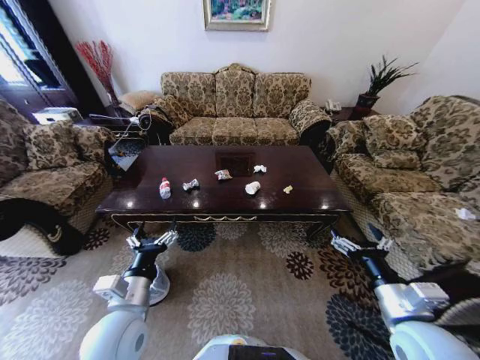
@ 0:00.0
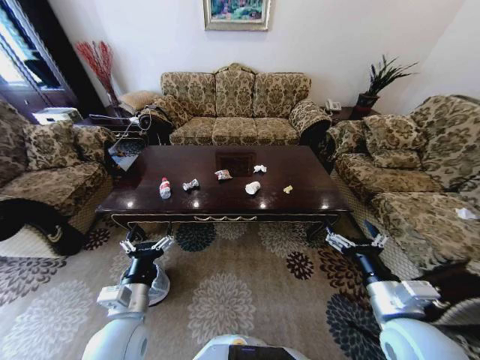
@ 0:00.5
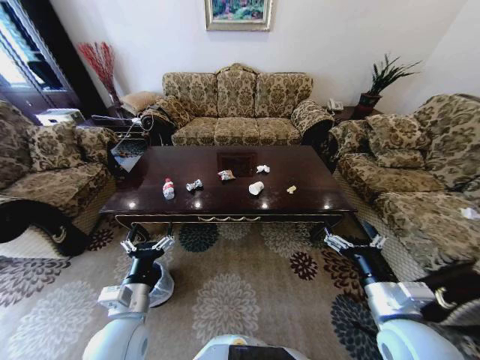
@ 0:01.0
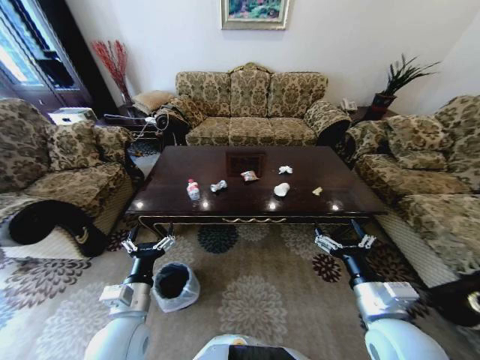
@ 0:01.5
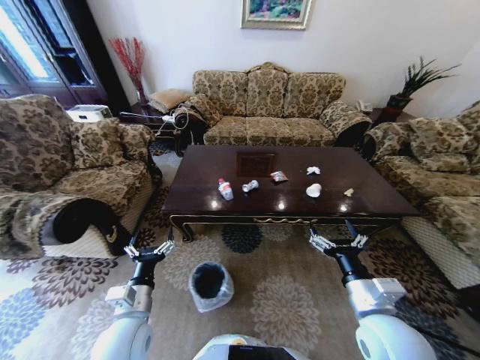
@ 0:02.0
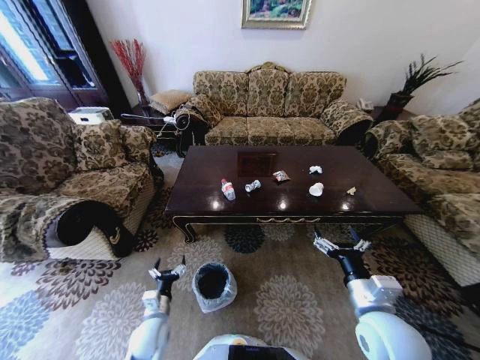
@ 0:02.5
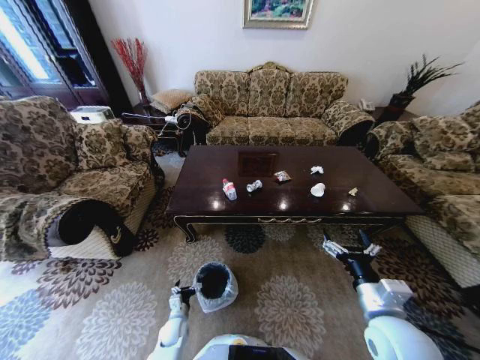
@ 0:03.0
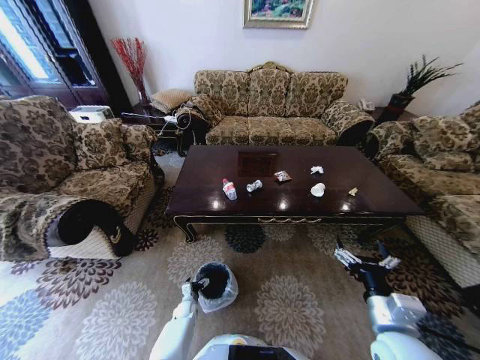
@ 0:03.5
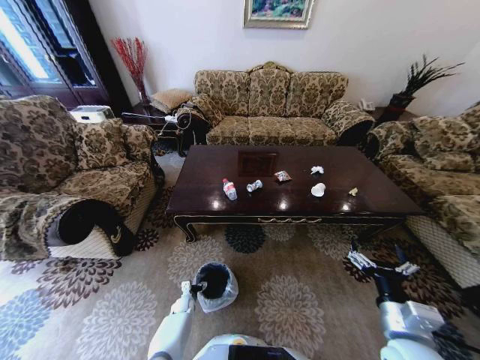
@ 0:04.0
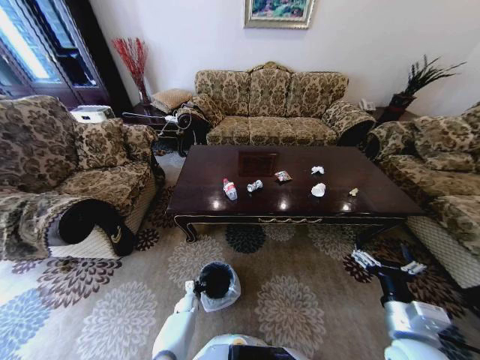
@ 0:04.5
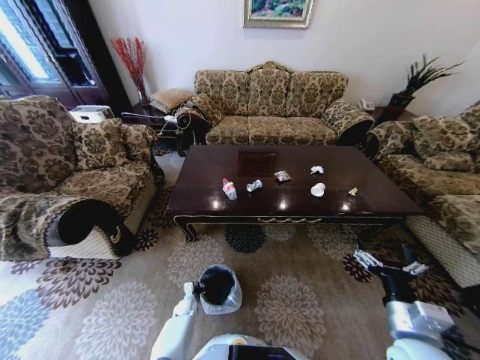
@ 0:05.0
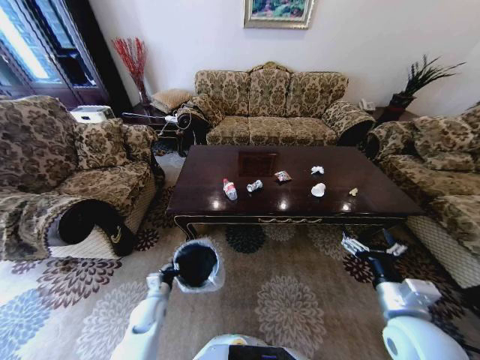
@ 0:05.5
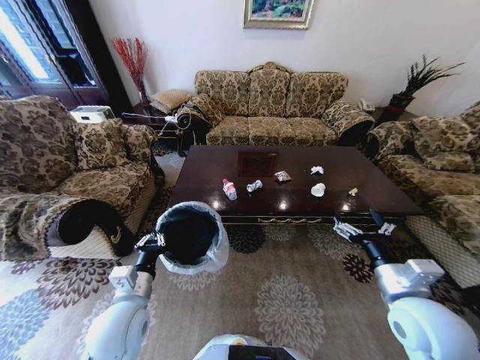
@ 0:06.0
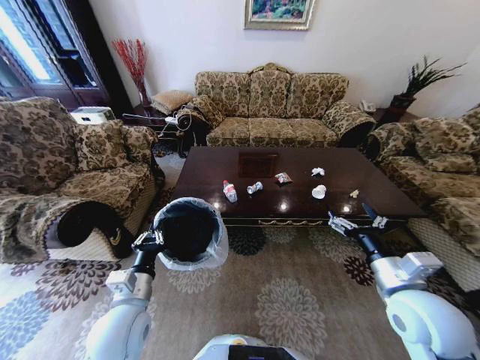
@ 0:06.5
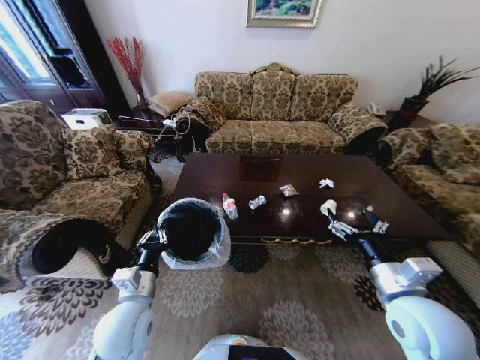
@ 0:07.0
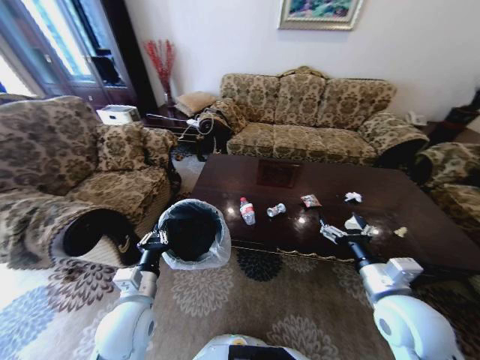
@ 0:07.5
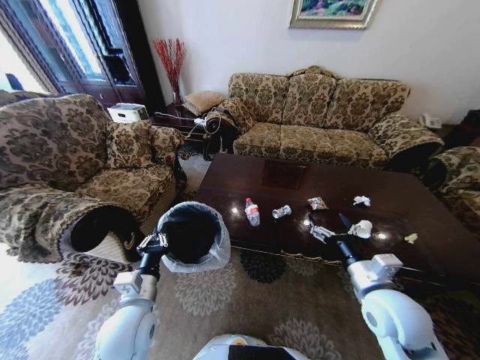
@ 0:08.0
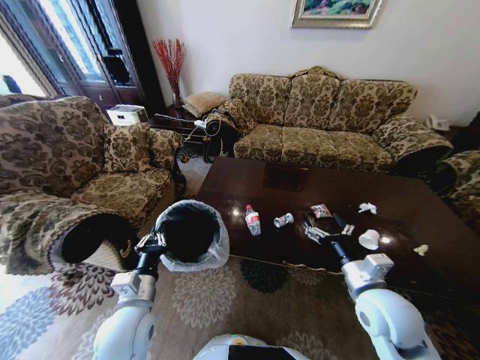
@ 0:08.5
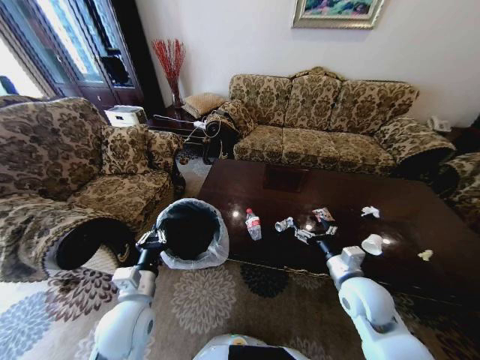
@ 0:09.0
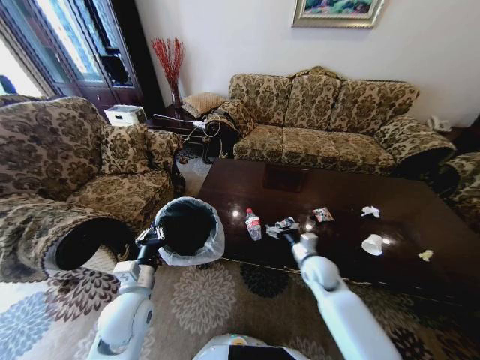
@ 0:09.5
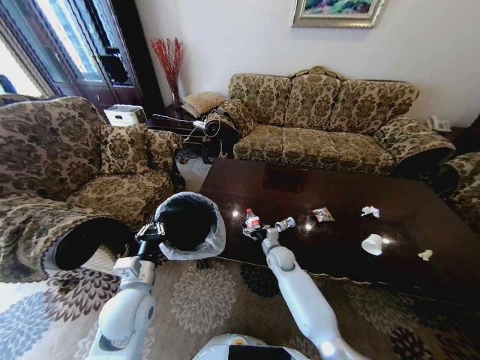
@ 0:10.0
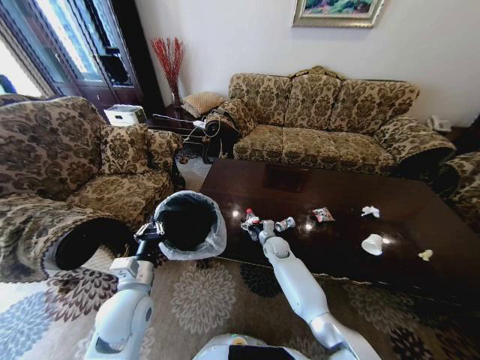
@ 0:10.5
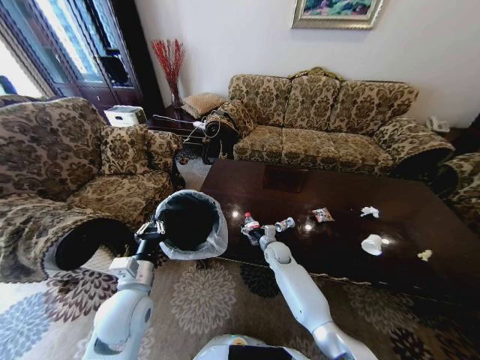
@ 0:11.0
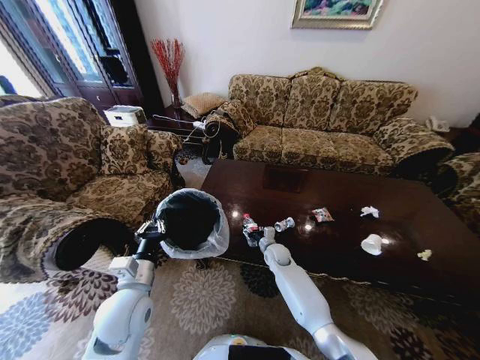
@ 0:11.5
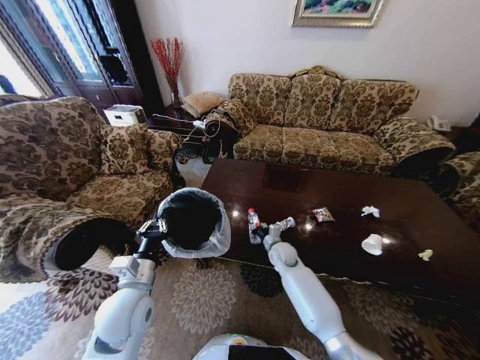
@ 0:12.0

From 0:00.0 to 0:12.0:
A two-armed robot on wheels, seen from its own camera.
Task of the whole recording: Move to the front of the table and place the trash on the table into the trash bin.
From 0:02.0 to 0:04.0: The right gripper moves some 5 cm, while the left gripper travels downward by some 35 cm.
From 0:04.0 to 0:06.0: The right gripper heads upward and forward, covering approximately 10 cm, while the left gripper shifts approximately 40 cm upward, and closes.
From 0:08.0 to 0:10.0: The right gripper heads forward, downward and to the left, covering about 30 cm.
From 0:10.0 to 0:12.0: The right gripper closes its fingers.

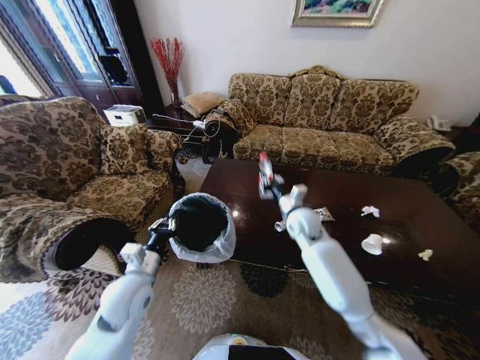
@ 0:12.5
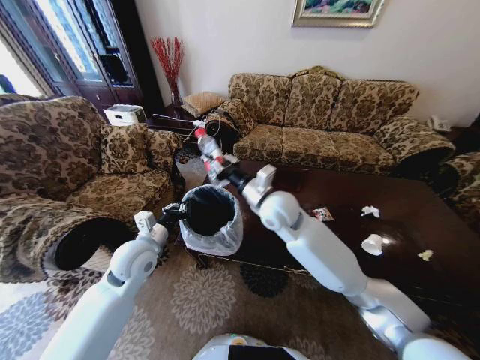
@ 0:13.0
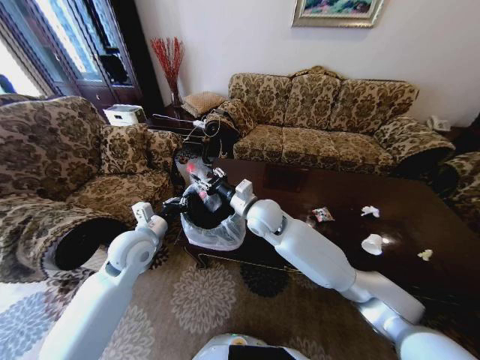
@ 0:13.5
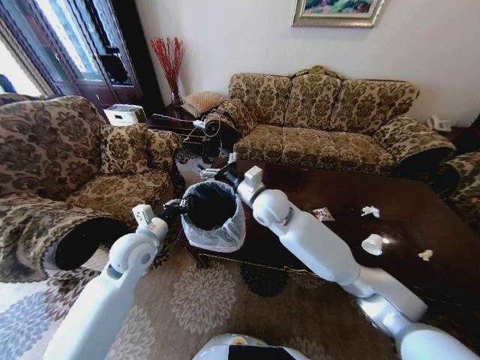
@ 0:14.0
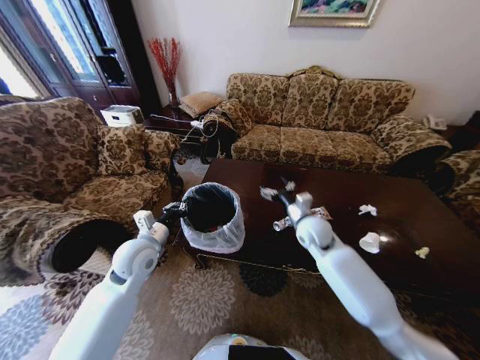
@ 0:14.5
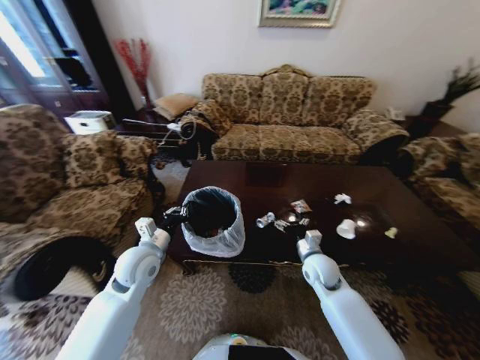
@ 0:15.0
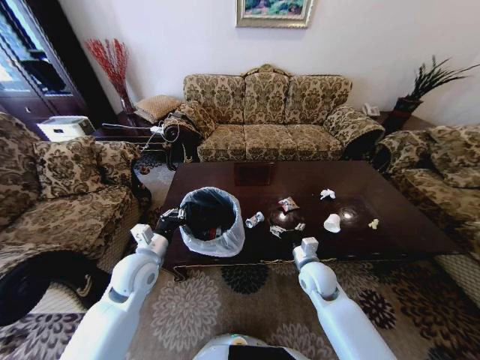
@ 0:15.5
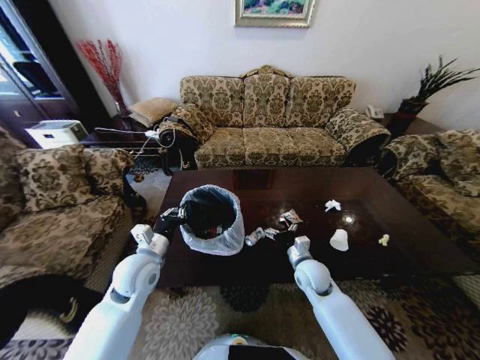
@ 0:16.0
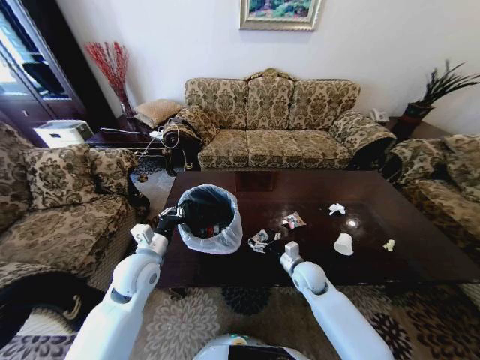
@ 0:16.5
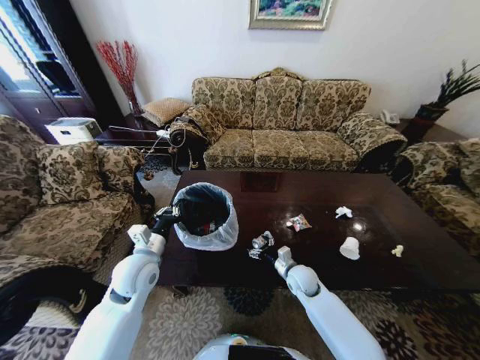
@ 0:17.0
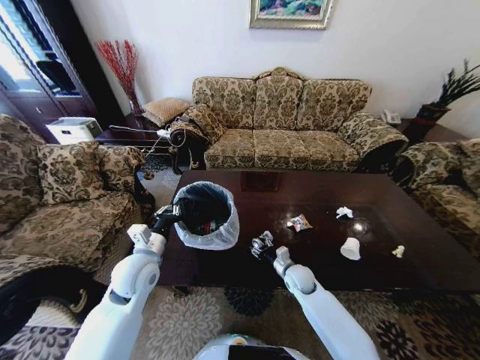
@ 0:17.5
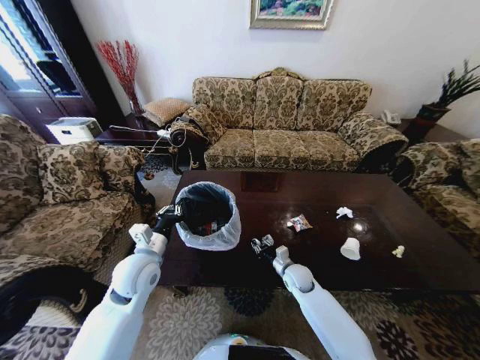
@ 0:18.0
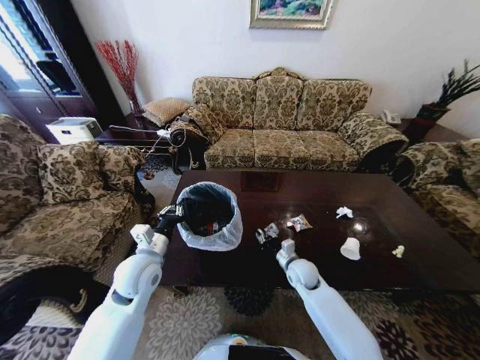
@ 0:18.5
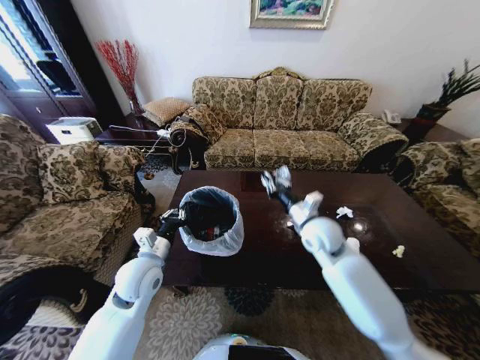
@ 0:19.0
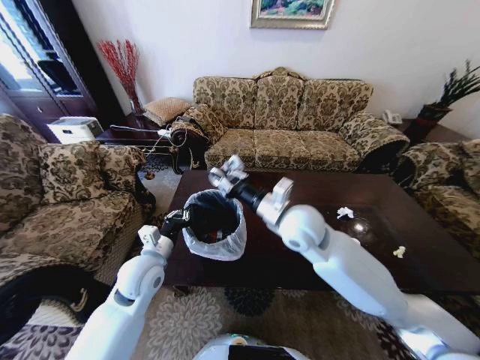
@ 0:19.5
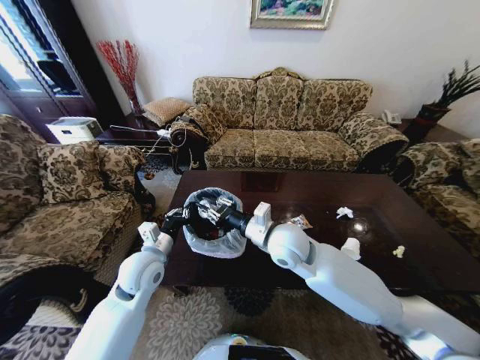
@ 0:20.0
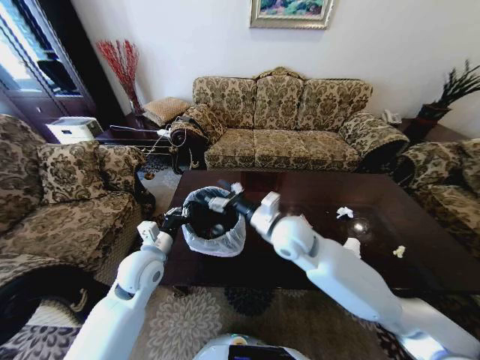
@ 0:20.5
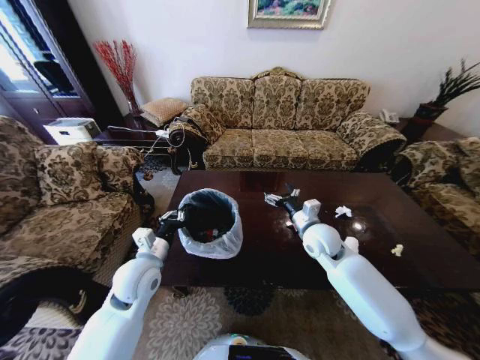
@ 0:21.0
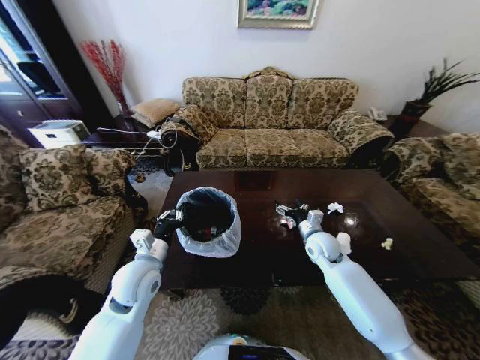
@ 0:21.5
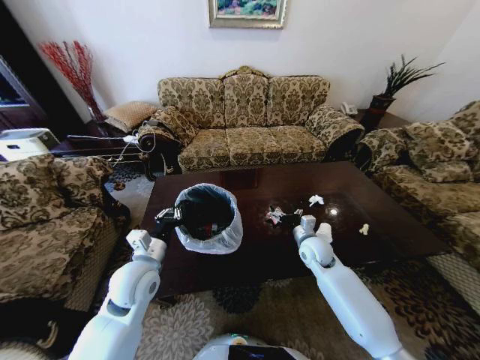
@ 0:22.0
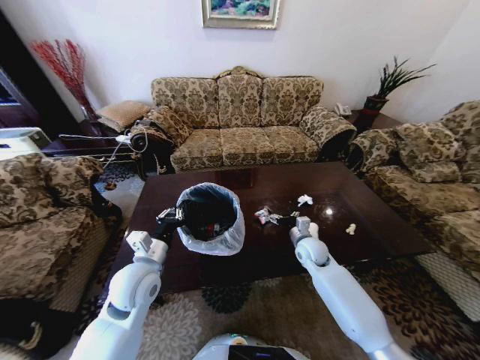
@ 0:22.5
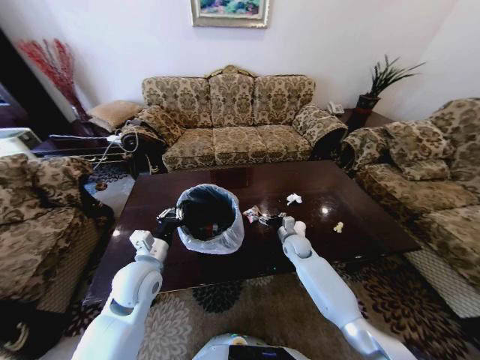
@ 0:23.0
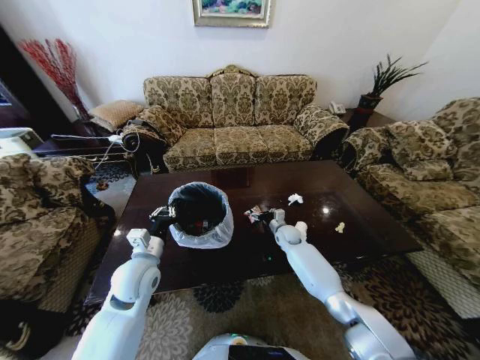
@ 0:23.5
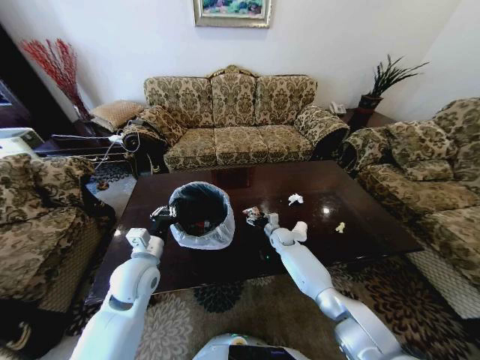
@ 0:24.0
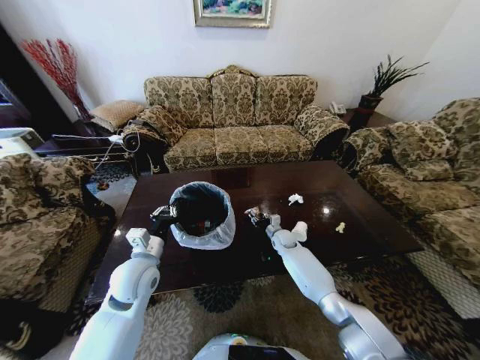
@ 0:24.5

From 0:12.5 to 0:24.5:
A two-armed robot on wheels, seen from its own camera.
Task of the whole recording: Move to the front of the table and place the trash on the table into the trash bin.
From 0:12.5 to 0:14.5: The right gripper moves roughly 15 cm to the left and comes back, and opens its fingers; the left gripper is displaced forward by approximately 10 cm.
From 0:14.5 to 0:16.5: The right gripper heads downward and backward, covering approximately 15 cm.
From 0:16.5 to 0:18.5: The right gripper closes its fingers.
From 0:18.5 to 0:20.5: The right gripper is displaced upward and to the left by roughly 25 cm, and opens.
From 0:20.5 to 0:22.5: The right gripper goes about 20 cm downward and to the right.
From 0:22.5 to 0:24.5: The right gripper goes roughly 15 cm forward, downward and to the left, and closes.

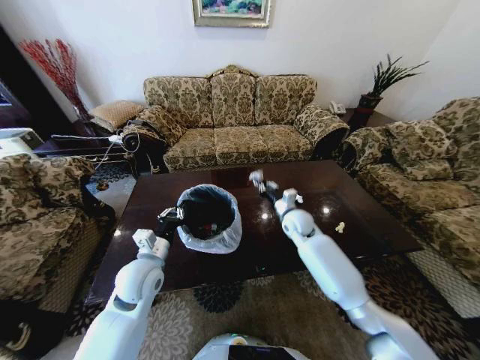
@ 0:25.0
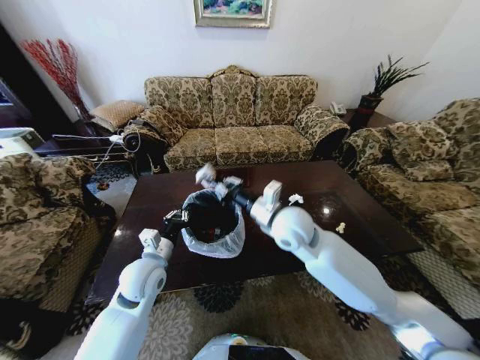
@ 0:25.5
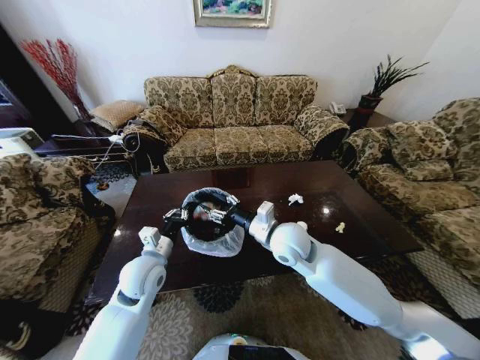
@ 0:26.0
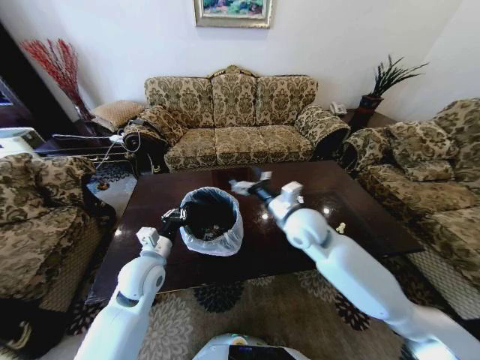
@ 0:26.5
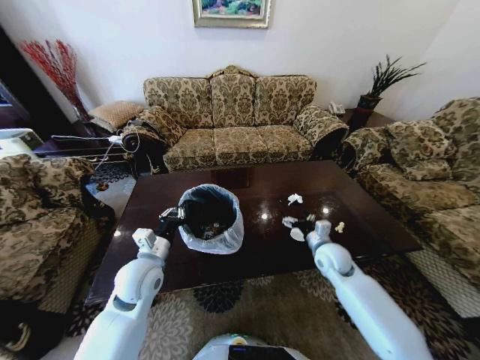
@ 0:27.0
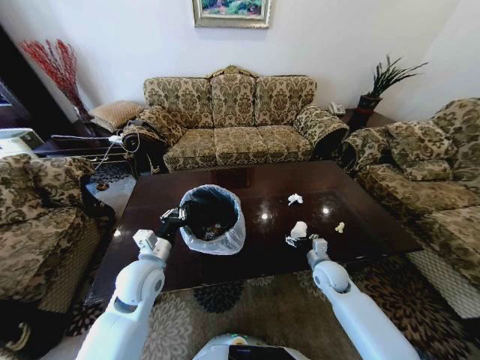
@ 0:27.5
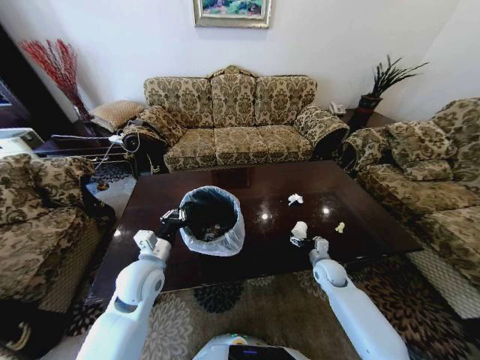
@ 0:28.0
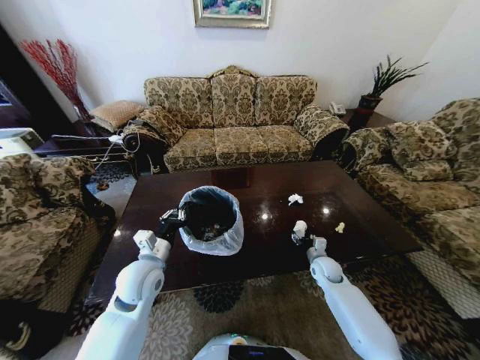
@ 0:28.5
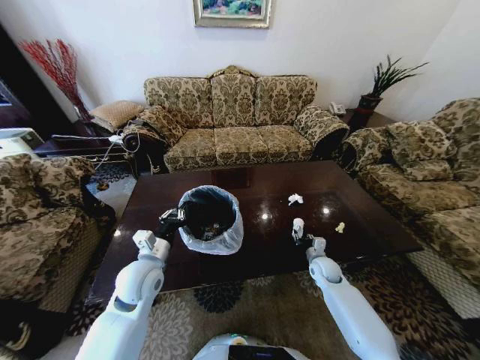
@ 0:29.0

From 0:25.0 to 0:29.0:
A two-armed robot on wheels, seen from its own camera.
Task of the whole recording: Move to the front of the table and place the trash on the table into the trash bin.
From 0:25.0 to 0:27.0: The right gripper is displaced backward and to the right by roughly 15 cm, goes upward and returns, approximately 15 cm each way, and opens its fingers.
From 0:27.0 to 0:29.0: The right gripper is displaced downward by roughly 10 cm, and closes.
